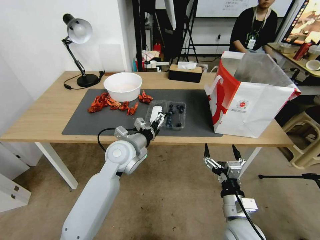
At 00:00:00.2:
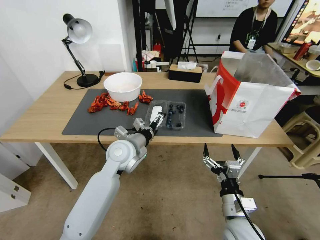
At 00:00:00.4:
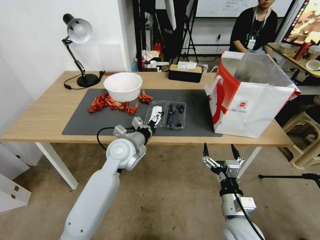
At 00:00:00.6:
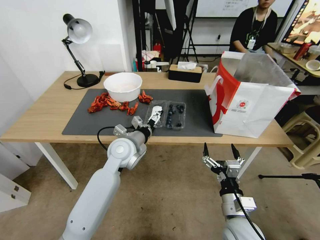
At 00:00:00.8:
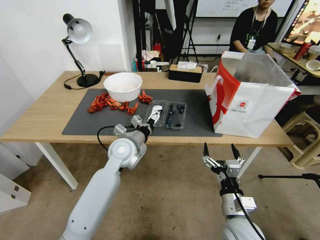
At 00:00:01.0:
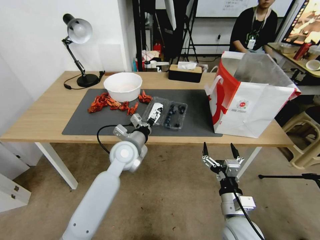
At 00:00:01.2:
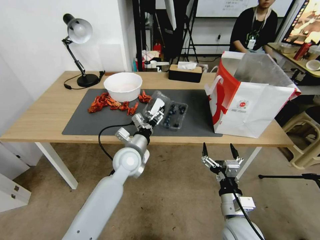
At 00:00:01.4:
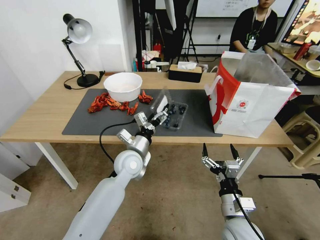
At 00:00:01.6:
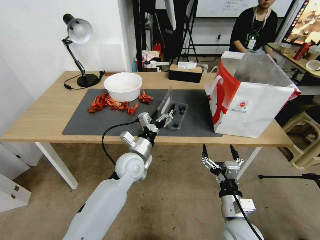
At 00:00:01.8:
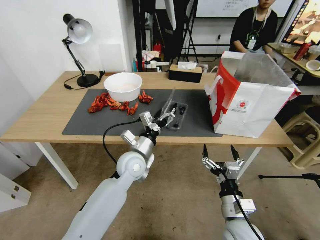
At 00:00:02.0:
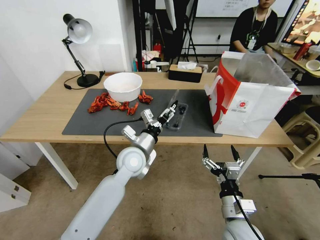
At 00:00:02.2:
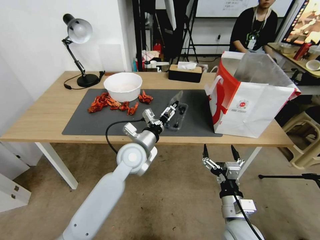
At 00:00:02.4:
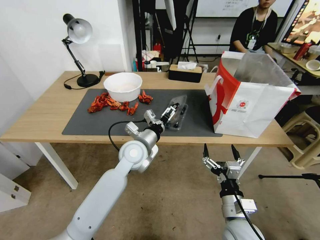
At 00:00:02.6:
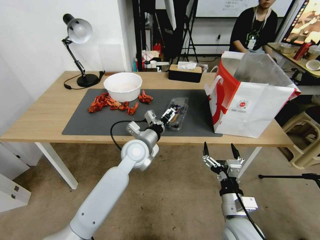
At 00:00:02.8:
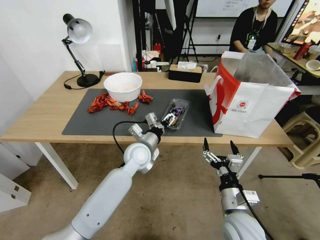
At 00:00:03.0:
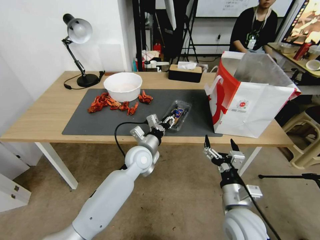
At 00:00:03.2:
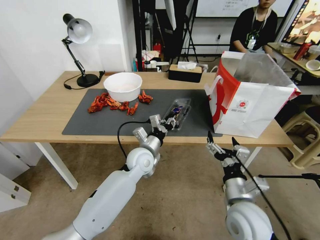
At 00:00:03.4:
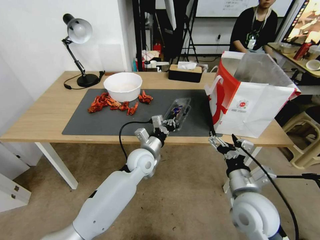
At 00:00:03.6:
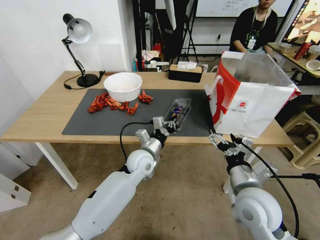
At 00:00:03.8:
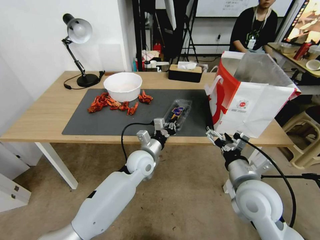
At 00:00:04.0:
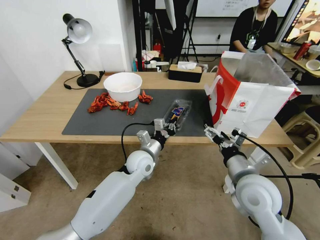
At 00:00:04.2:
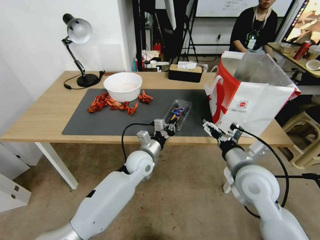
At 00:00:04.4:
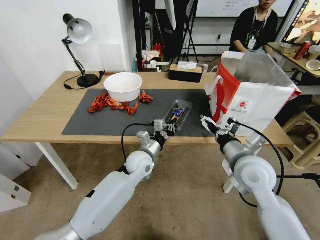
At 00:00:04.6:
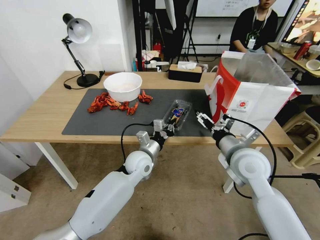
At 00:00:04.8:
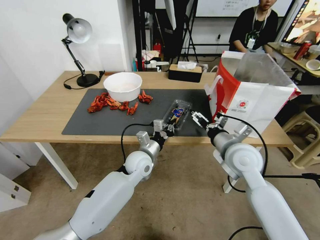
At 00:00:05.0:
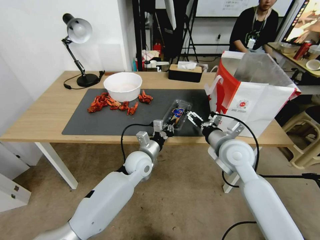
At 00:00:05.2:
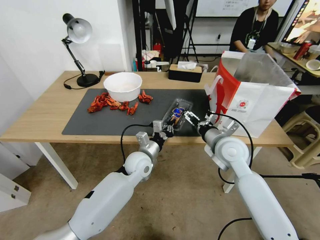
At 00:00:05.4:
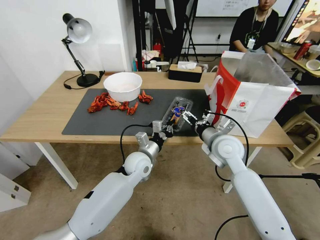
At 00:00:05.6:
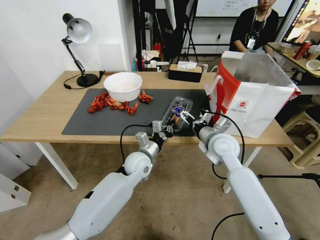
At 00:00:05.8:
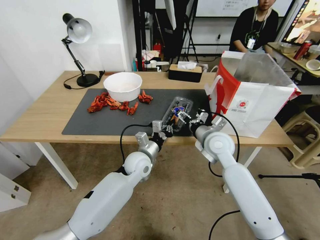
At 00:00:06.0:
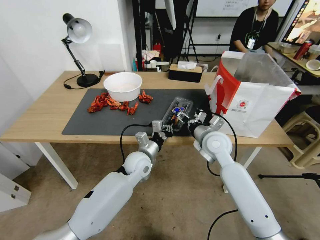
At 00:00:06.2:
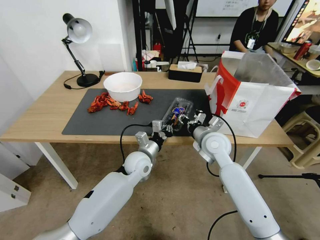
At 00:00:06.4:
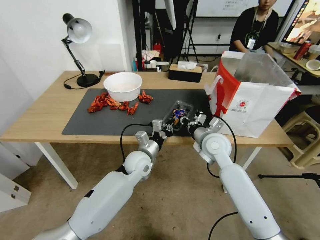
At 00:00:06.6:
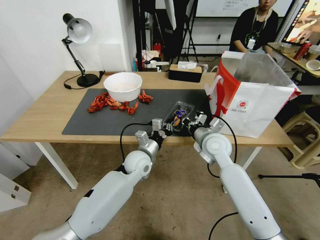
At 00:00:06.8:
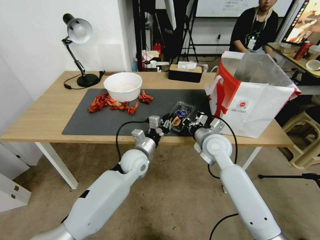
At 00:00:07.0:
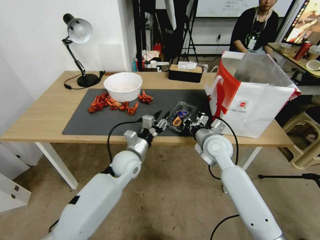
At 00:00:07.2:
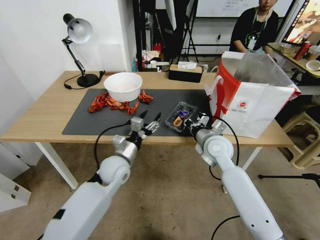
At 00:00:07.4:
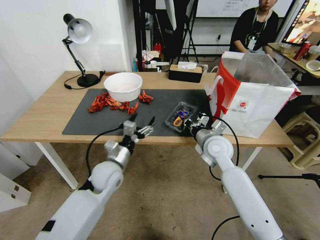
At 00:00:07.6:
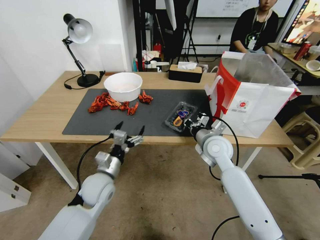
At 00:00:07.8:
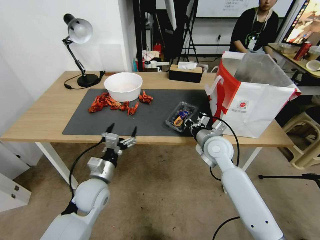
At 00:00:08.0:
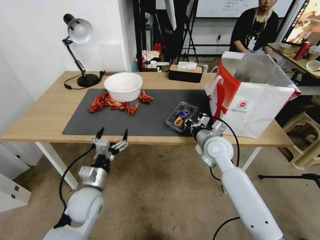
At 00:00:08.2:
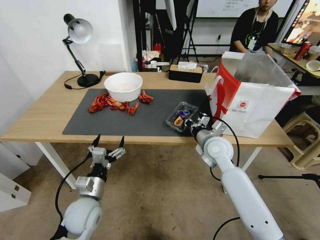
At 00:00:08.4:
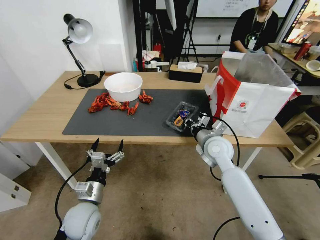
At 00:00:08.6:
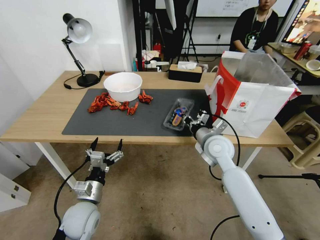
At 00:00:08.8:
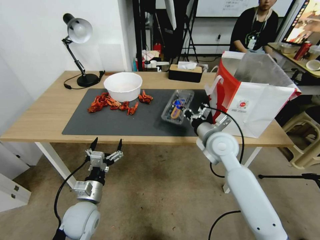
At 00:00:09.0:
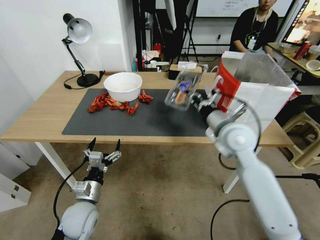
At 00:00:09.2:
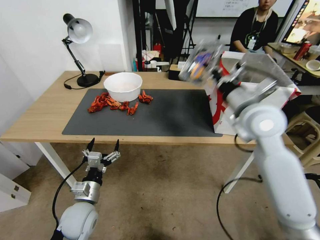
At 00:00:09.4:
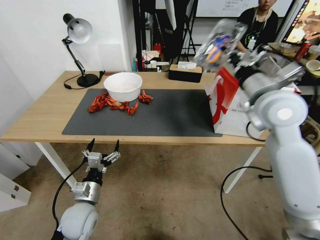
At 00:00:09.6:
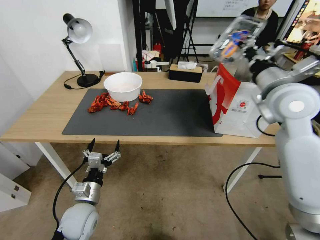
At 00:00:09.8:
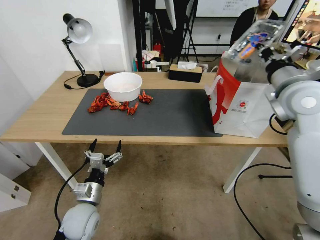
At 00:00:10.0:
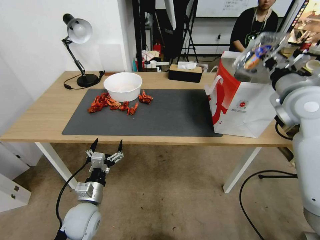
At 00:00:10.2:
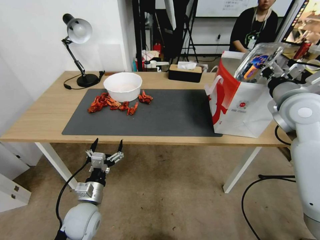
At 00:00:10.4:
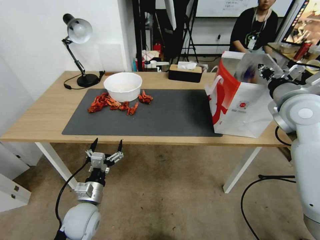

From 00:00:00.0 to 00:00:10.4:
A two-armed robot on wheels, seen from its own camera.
Task of the whole recording: Close the takeout container lid, then place the container into the takeout bag.
From 00:00:00.0 to 00:00:01.4: The left gripper moves downward, roughly 5 cm.
From 00:00:01.4 to 00:00:03.0: The left gripper closes up.
From 00:00:03.0 to 00:00:04.4: The left gripper closes. The right gripper goes approximately 15 cm upward and forward.
From 00:00:04.4 to 00:00:06.0: The right gripper heads forward and to the left, covering about 15 cm, and closes up.
From 00:00:06.0 to 00:00:07.4: The left gripper is displaced to the left and backward by some 10 cm, and opens its fingers. Meanwhile the right gripper closes its fingers.
From 00:00:07.4 to 00:00:09.0: The right gripper goes roughly 10 cm upward; the left gripper shifts about 15 cm backward, to the left and downward.
From 00:00:09.0 to 00:00:10.4: The right gripper heads to the right and upward, covering approximately 20 cm.

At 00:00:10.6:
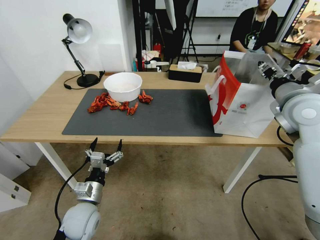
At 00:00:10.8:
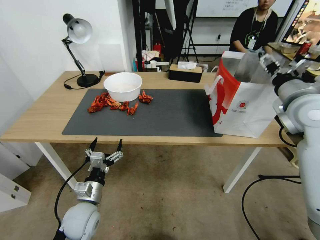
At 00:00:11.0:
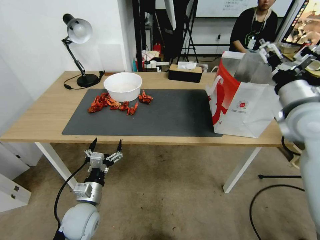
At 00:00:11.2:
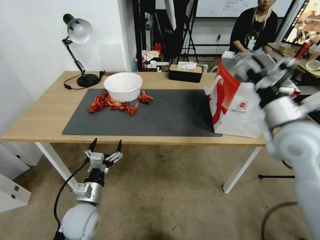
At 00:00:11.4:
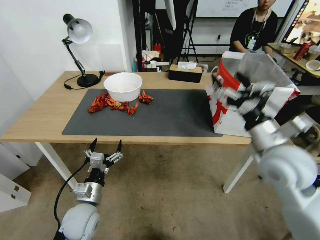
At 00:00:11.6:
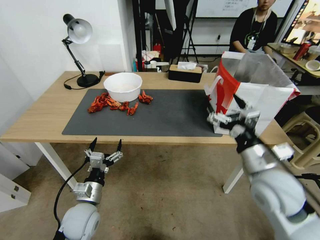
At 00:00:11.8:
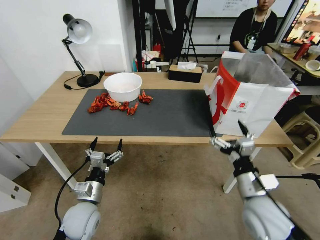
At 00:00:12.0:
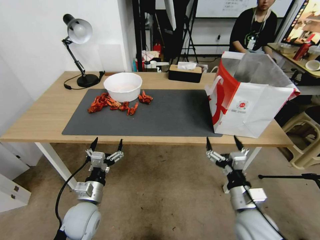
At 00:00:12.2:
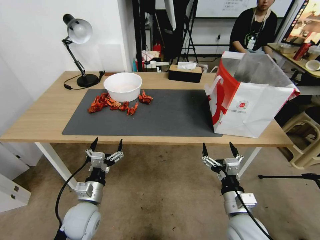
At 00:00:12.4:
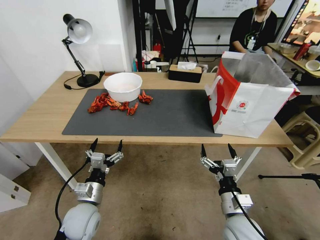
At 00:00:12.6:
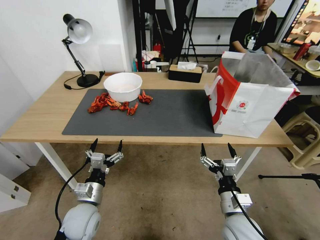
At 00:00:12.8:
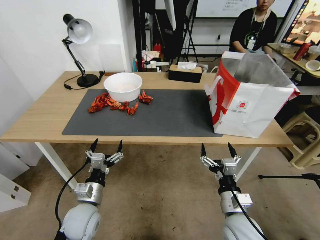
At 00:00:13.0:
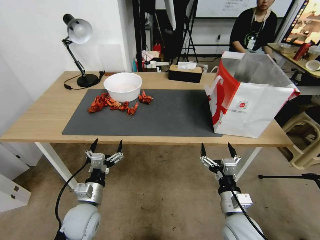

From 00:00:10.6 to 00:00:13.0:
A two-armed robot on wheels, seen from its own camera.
Task of the whole recording: Close the takeout container lid, then place the container into the takeout bag.
From 00:00:10.6 to 00:00:11.8: The right gripper shifts roughly 25 cm downward, backward and to the left, and opens up.
From 00:00:11.8 to 00:00:13.0: The right gripper moves downward, about 10 cm.
